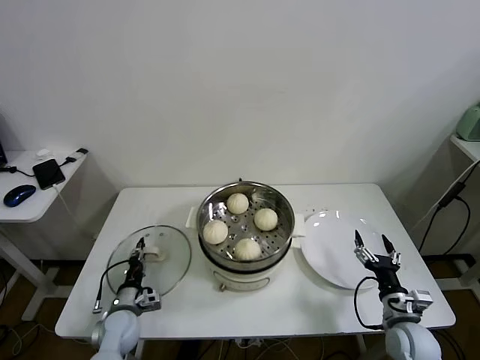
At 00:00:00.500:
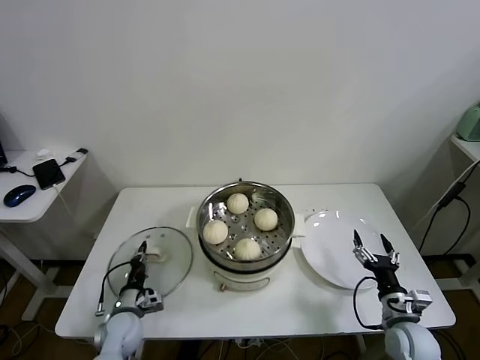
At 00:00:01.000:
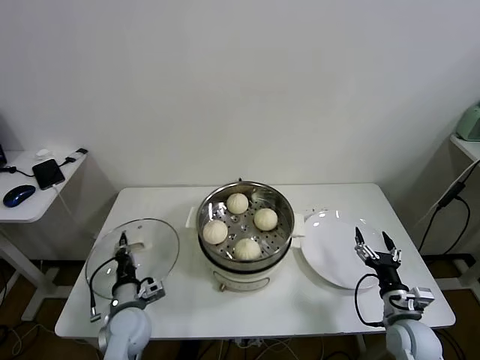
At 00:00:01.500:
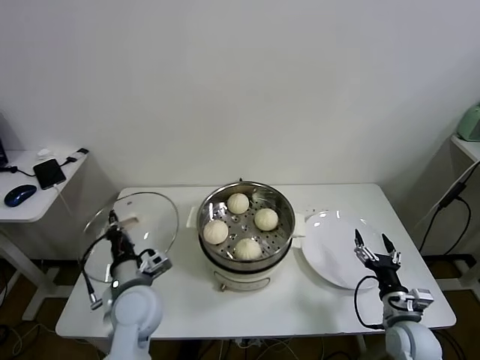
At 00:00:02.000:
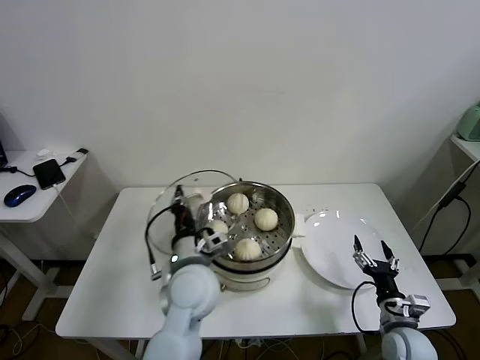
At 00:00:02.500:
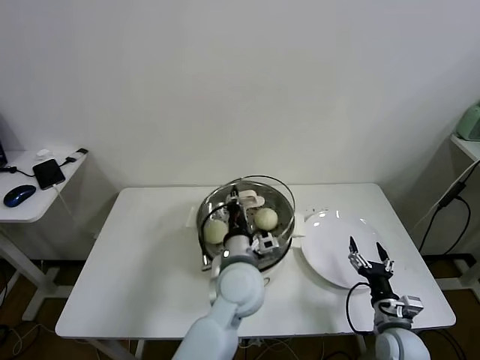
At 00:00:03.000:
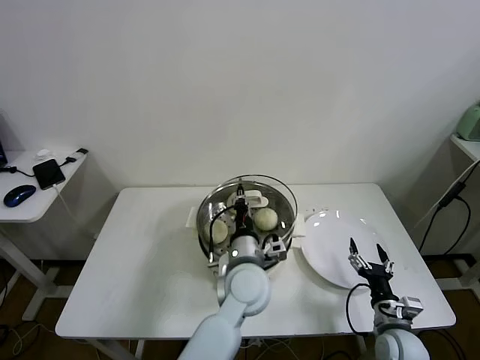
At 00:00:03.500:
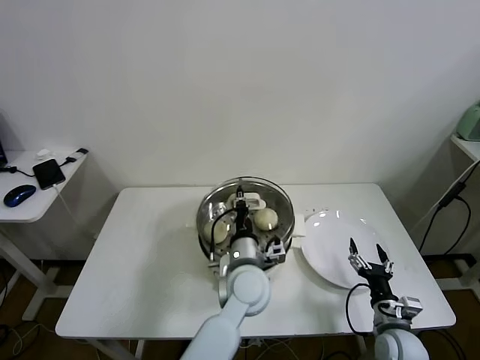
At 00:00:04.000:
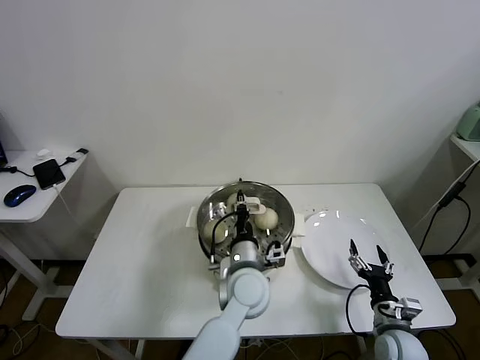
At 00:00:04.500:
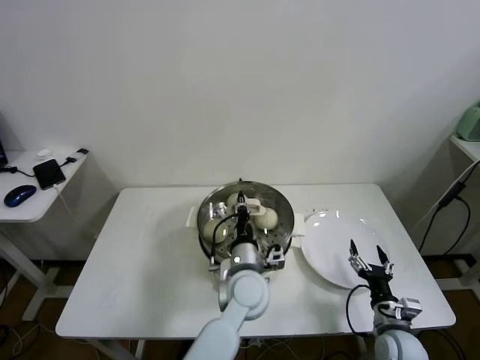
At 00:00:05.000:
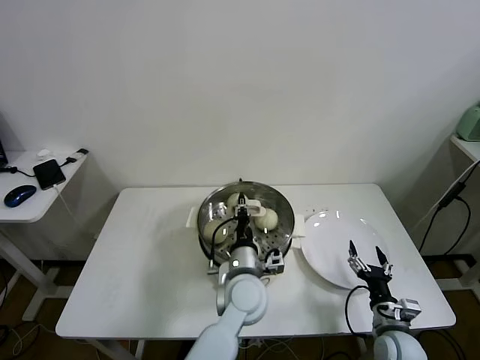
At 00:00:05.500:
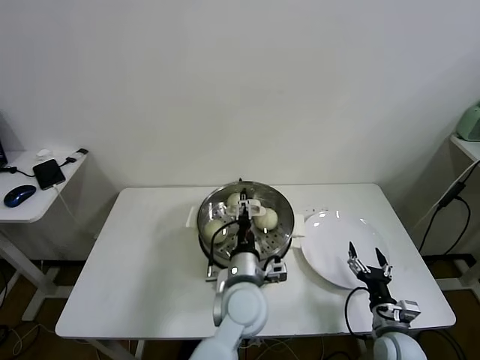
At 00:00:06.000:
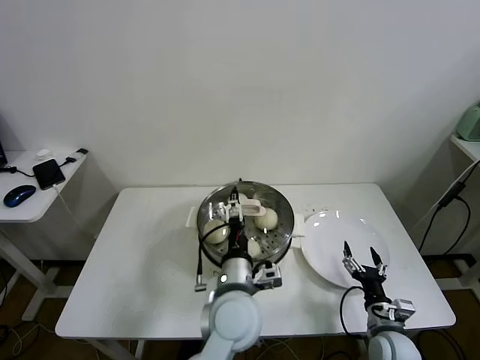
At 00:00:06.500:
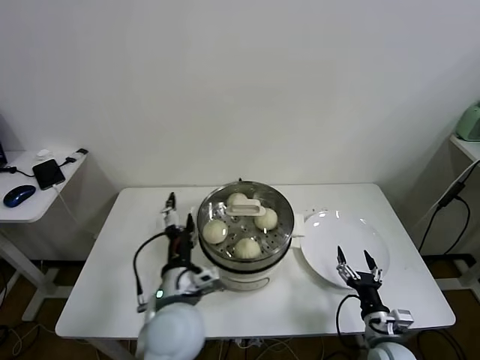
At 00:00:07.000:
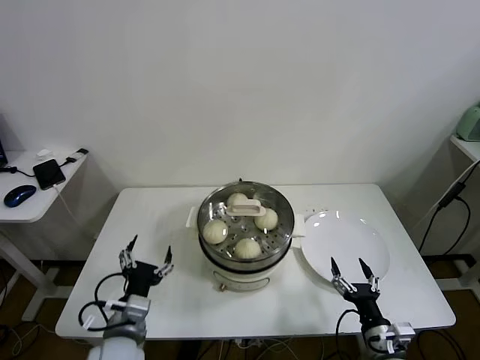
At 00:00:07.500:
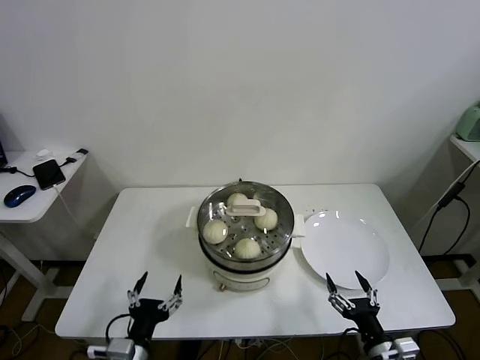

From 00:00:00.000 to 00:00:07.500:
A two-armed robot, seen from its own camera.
Task of the whole recording: take steamed baozi put them in steamer.
Step, from 00:00:00.500 to 00:00:05.000: Place the pot lid on the steamer with left gripper.
From 00:00:00.000 to 00:00:02.000: The left gripper goes about 30 cm upward and to the right, and closes its fingers.
From 00:00:02.000 to 00:00:04.000: The left gripper goes about 10 cm to the right.
From 00:00:04.000 to 00:00:05.500: The left gripper opens.
From 00:00:05.500 to 00:00:07.500: The right gripper goes approximately 10 cm backward; the left gripper heads to the left and backward, covering about 30 cm, and opens up.
